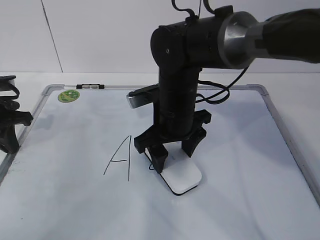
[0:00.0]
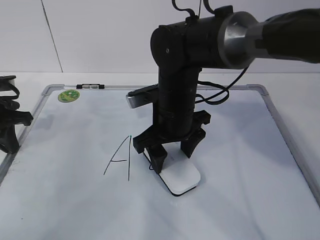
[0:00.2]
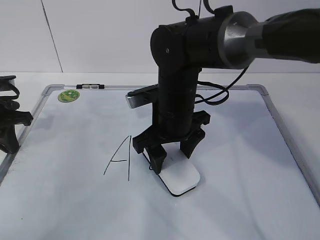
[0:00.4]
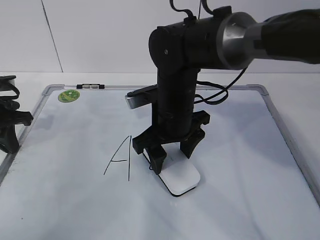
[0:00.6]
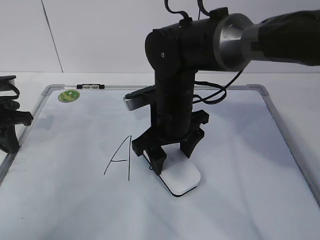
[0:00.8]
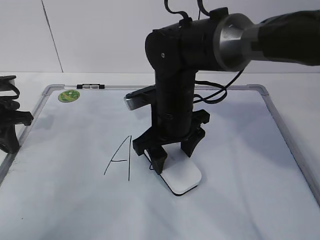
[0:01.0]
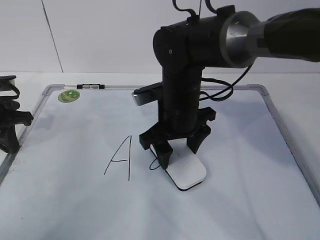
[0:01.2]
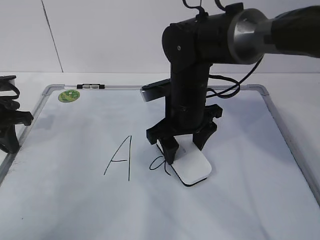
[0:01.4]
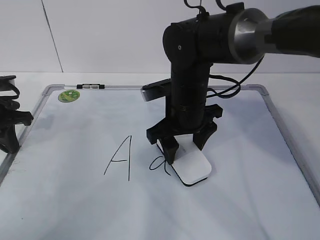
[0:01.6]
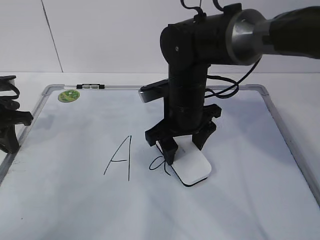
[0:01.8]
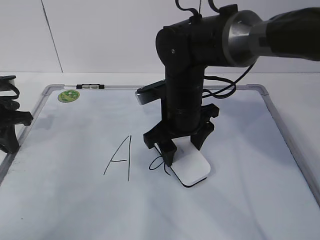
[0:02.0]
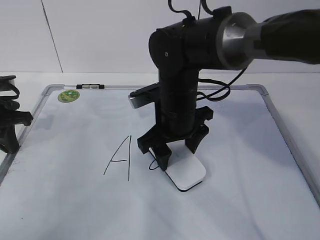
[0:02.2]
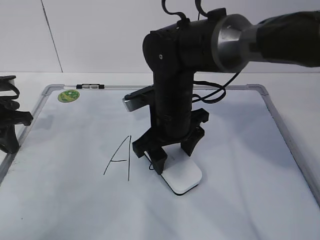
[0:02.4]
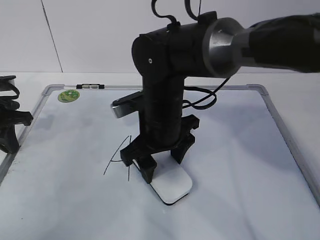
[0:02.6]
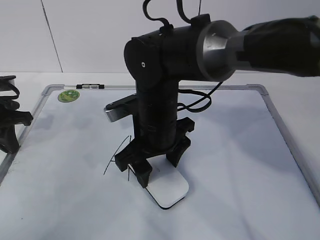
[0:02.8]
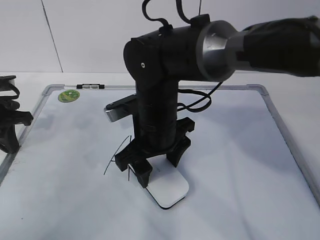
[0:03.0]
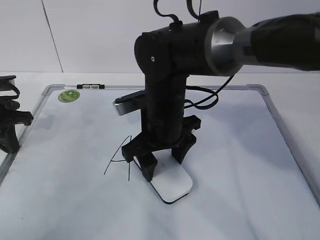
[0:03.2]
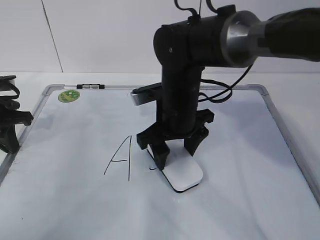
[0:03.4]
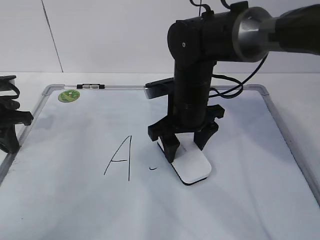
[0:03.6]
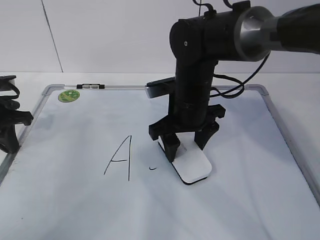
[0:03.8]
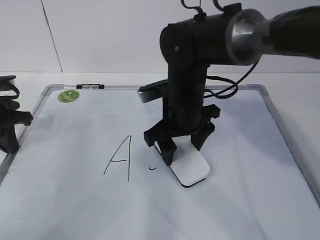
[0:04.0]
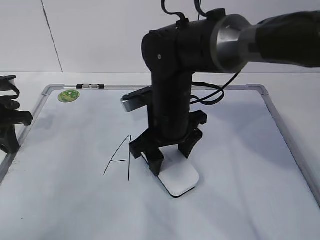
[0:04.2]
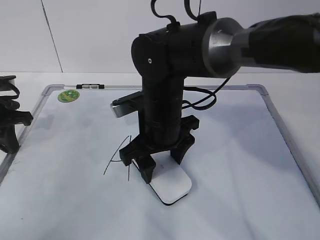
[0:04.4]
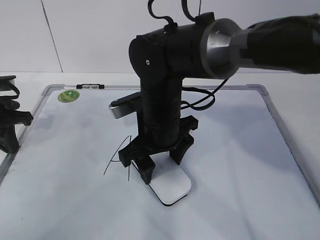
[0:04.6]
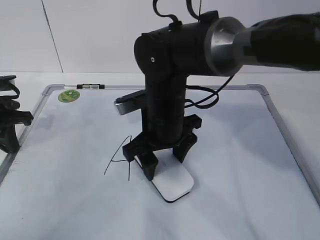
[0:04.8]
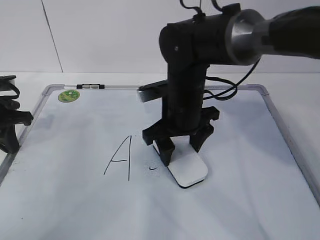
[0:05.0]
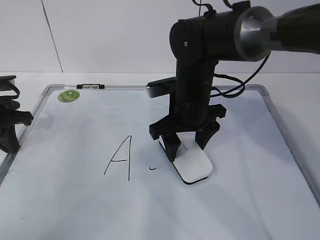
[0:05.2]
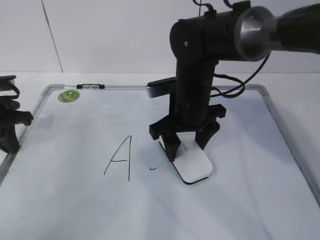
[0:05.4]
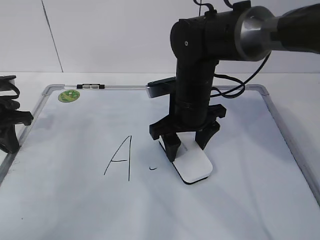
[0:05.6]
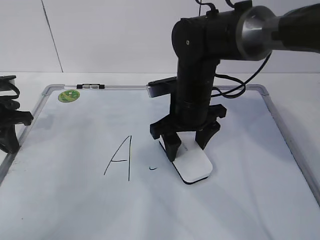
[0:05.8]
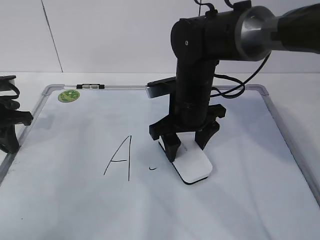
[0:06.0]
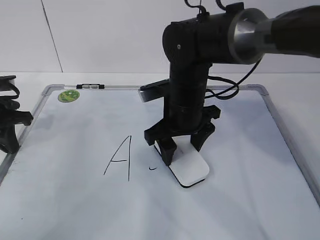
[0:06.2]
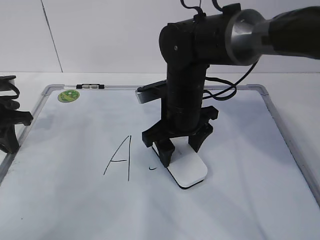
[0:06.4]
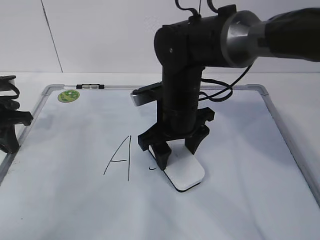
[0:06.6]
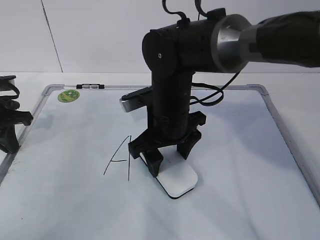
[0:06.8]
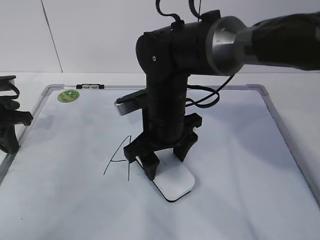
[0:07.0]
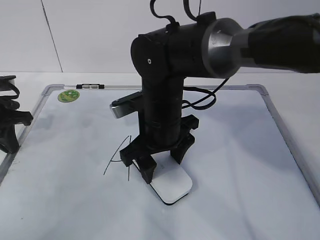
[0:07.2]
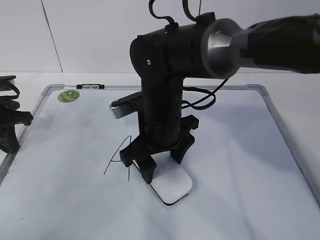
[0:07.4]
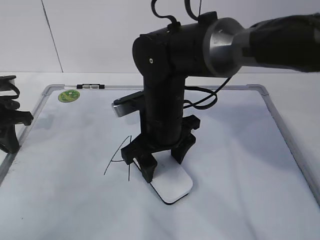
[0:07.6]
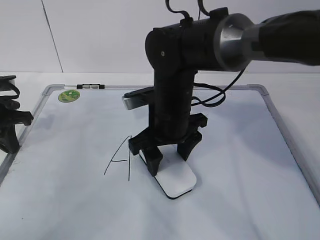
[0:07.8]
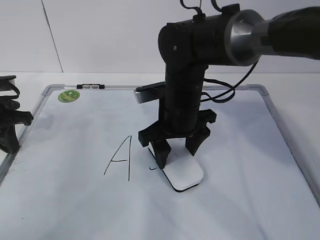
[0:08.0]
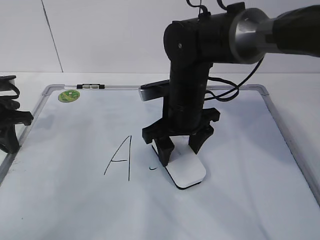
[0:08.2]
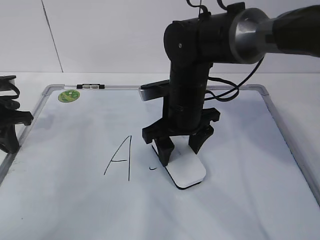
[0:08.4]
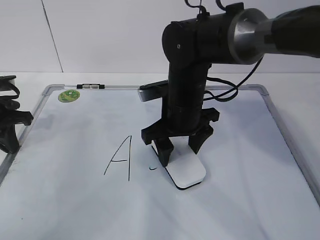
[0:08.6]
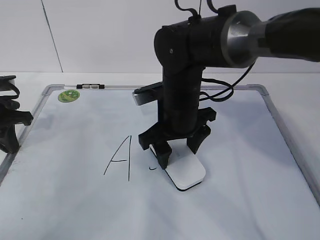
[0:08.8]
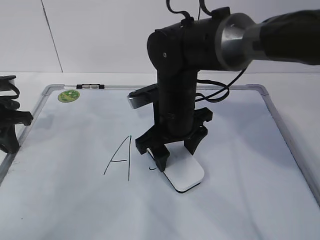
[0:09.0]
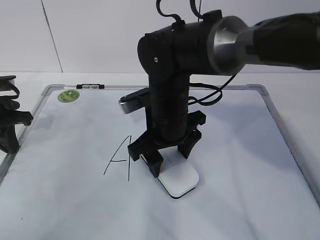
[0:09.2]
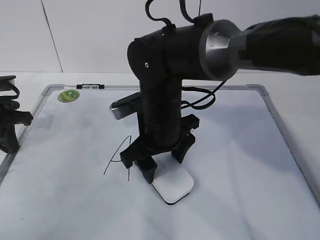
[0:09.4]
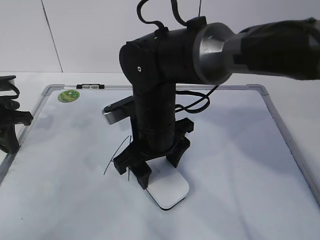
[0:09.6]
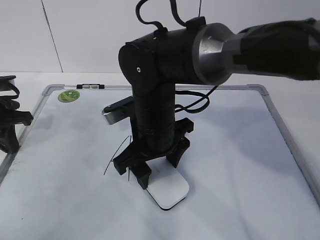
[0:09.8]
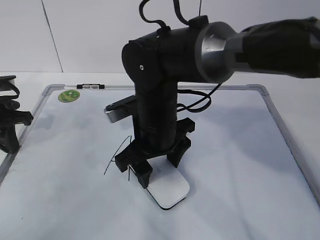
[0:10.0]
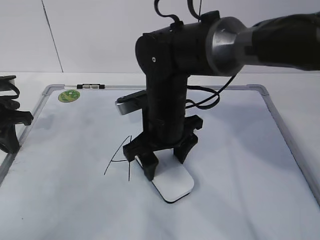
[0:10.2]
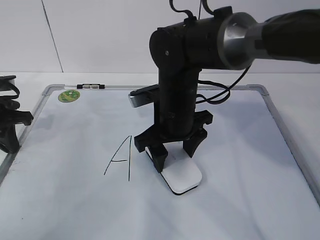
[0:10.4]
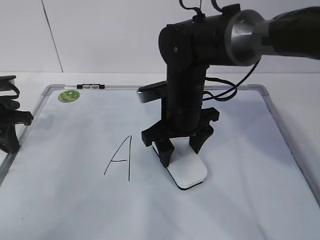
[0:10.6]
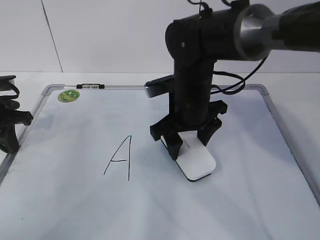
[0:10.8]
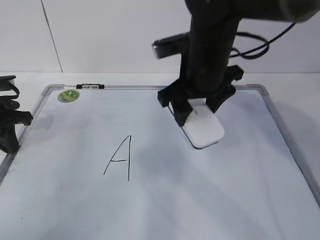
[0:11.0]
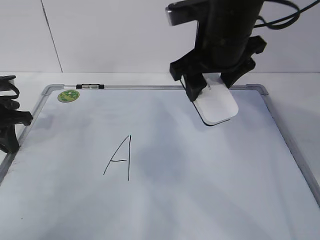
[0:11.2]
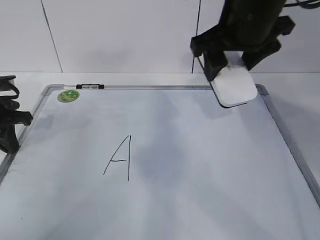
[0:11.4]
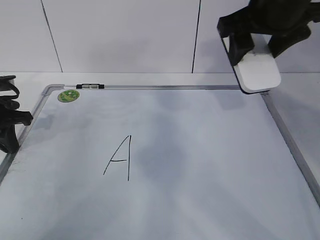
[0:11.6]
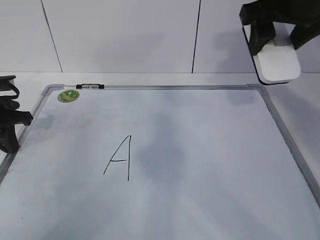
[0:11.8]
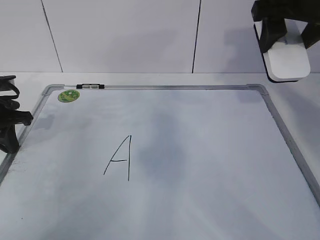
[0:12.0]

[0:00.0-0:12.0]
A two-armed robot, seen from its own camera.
Task of the whole recording: pick up the eraser on the blackboard and erase the letter "a".
Step, 0:00.0 to 0:04.8: Erase the letter a with your right hand.
Step, 0:05.0 to 0:09.0: Put down the eraser with your right hand.
0:00.0 to 0:01.6: There are only small adjustments of the grippers.
0:01.6 to 0:03.0: The right gripper heads to the left, covering about 5 cm.
0:04.4 to 0:06.0: The right gripper moves about 5 cm.
0:06.0 to 0:07.6: The right gripper shifts by about 5 cm.
0:07.6 to 0:10.4: The grippers move only a little.
0:10.4 to 0:12.0: The right gripper heads upward and to the right, covering approximately 25 cm.

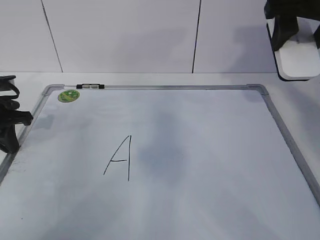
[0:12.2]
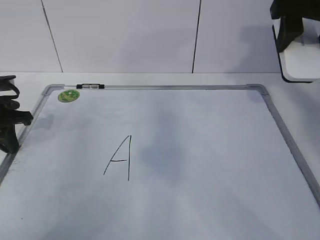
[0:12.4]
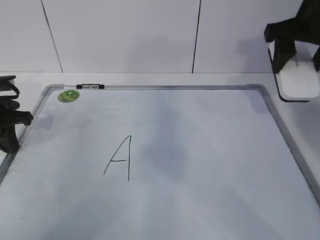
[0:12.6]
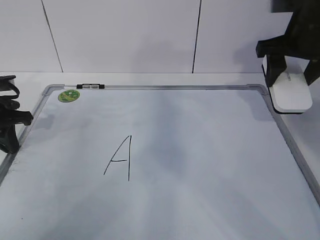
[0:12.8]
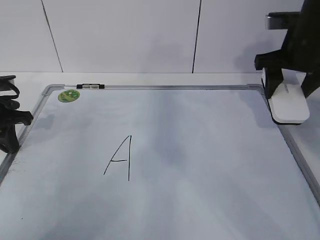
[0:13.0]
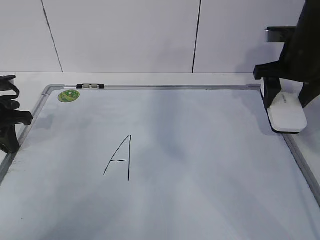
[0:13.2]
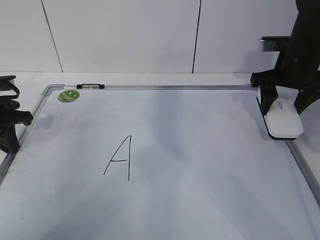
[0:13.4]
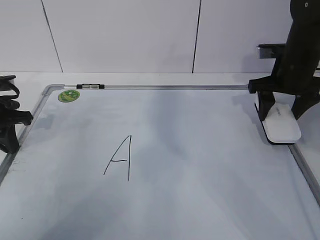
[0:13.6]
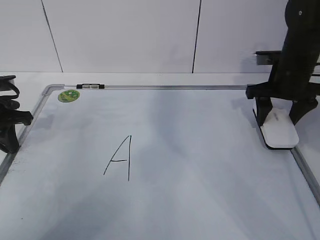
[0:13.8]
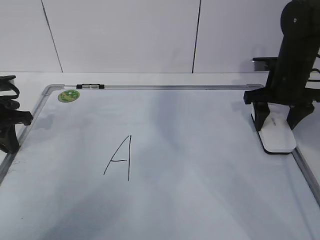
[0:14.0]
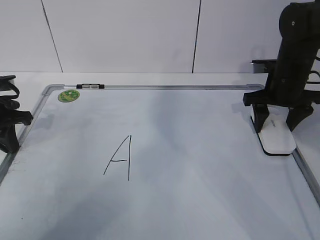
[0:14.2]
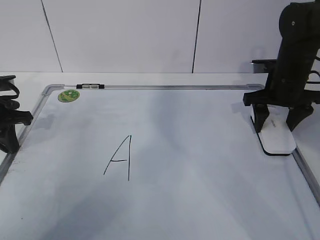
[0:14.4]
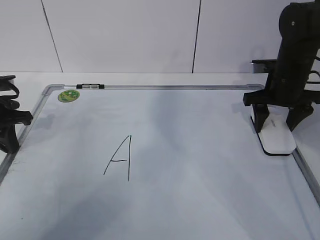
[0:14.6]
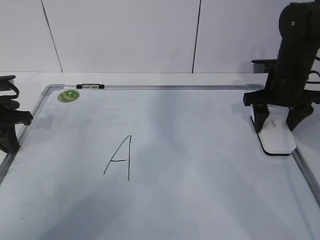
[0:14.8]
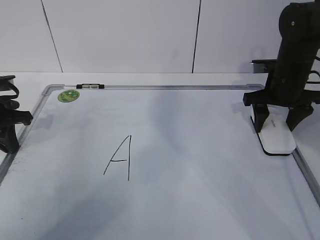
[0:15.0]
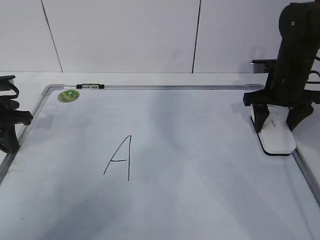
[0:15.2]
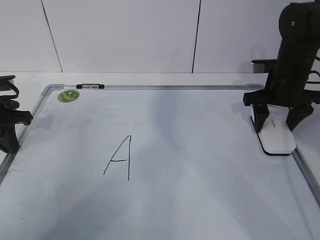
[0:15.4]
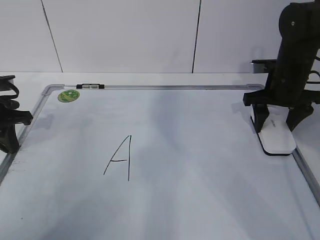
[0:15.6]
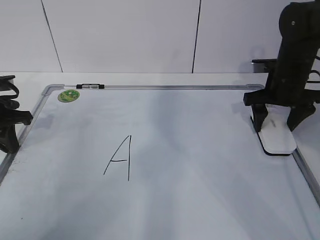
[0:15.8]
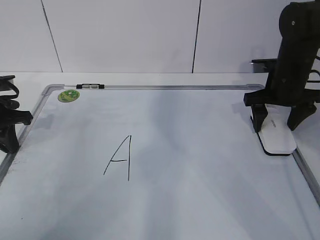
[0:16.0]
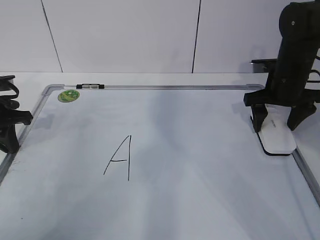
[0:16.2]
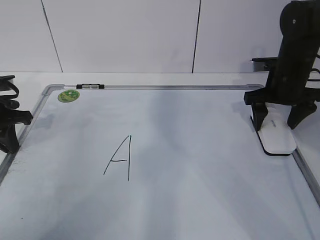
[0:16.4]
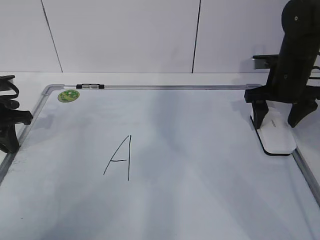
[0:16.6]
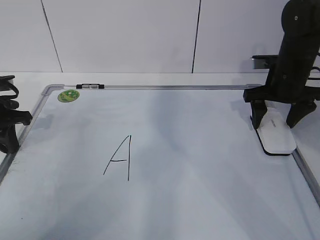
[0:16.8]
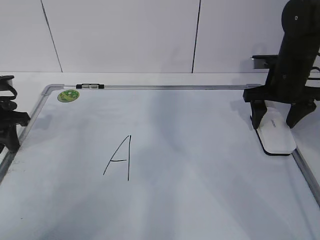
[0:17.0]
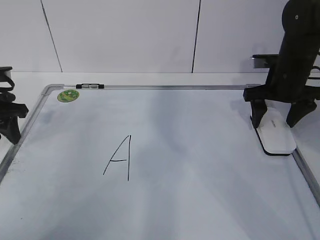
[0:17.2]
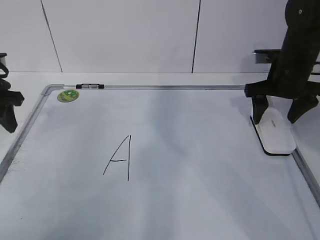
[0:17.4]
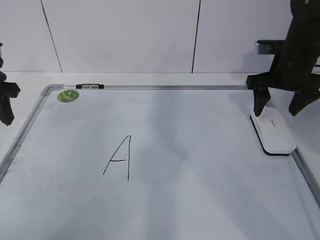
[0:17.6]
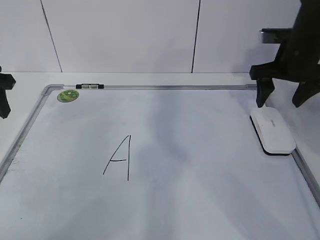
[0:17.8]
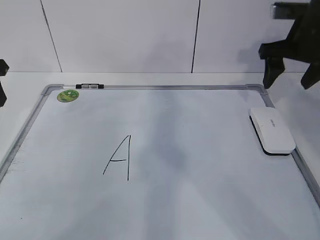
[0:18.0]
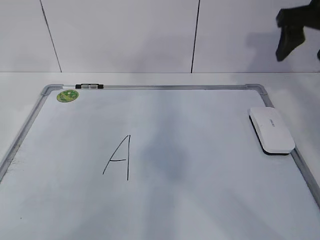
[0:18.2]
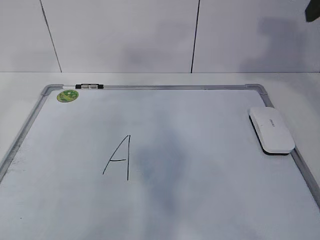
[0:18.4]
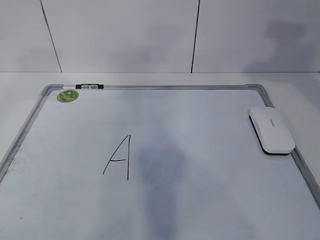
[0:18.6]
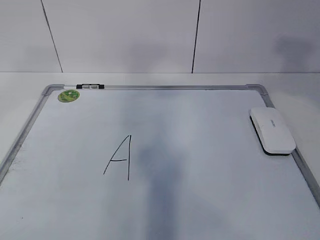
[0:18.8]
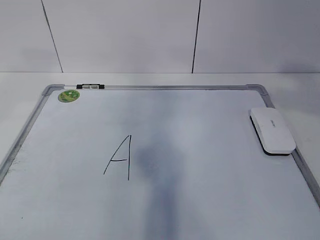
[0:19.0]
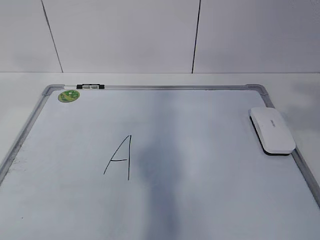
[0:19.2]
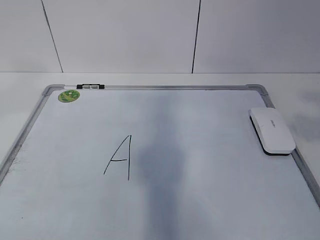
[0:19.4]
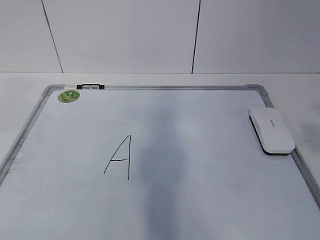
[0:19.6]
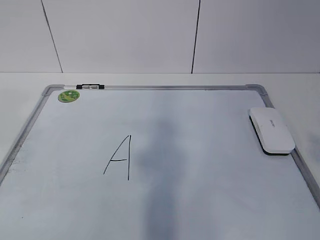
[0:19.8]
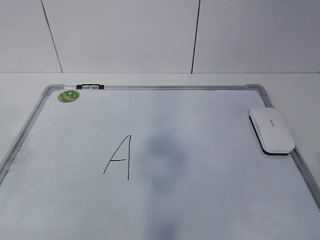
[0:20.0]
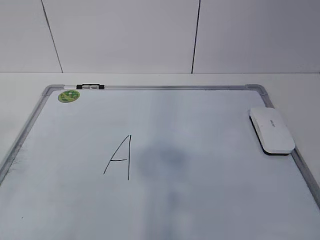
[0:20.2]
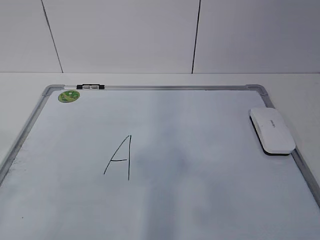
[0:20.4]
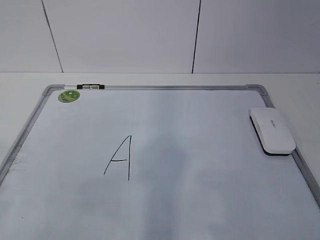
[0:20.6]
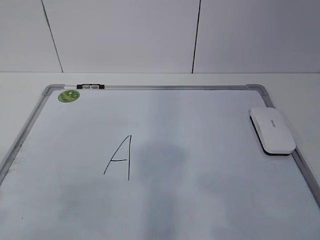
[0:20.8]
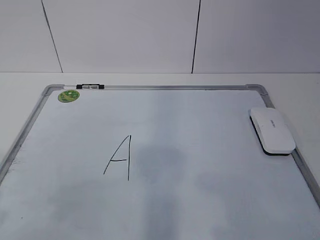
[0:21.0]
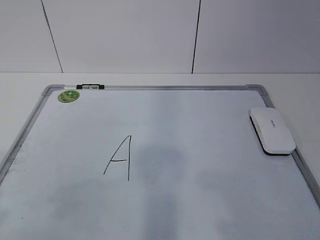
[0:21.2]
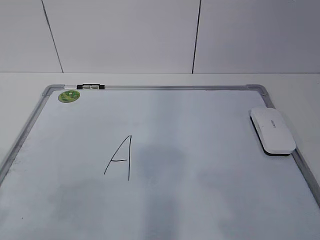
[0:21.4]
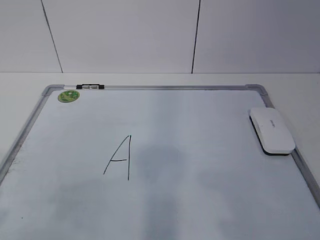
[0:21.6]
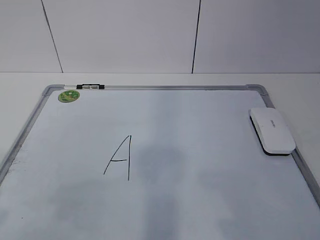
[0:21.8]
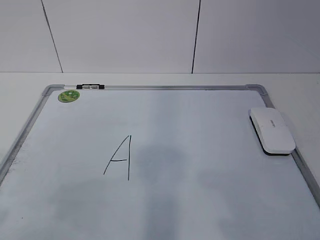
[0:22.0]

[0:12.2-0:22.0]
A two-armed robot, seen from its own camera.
Task of the whole recording: pick up the eraser on the blackboard and erase the letter "a".
0:12.2 to 0:13.6: The right gripper travels downward and forward by approximately 15 cm.
0:13.6 to 0:15.0: The grippers stay close to where they were, moving slightly.
0:15.0 to 0:16.4: The right gripper opens.
0:16.4 to 0:17.8: The grippers both shift upward by approximately 5 cm. The left gripper opens.
0:17.8 to 0:19.2: The left gripper moves upward and backward, about 30 cm; the right gripper is displaced backward and upward by some 35 cm.
0:19.2 to 0:20.6: The right gripper shifts roughly 20 cm downward and backward, and closes its fingers.
